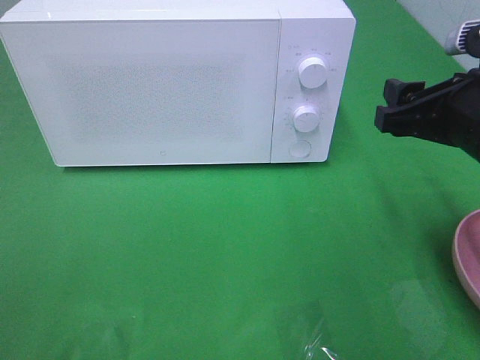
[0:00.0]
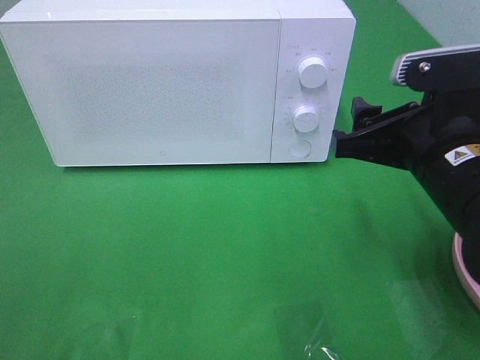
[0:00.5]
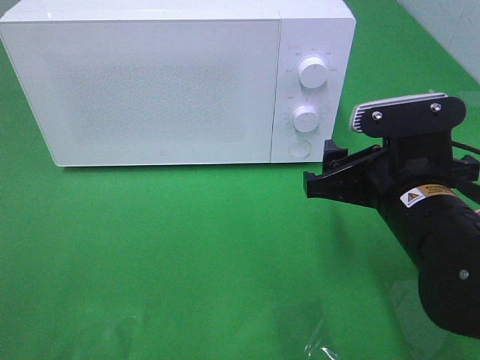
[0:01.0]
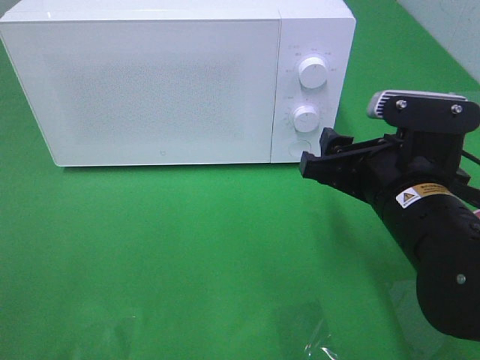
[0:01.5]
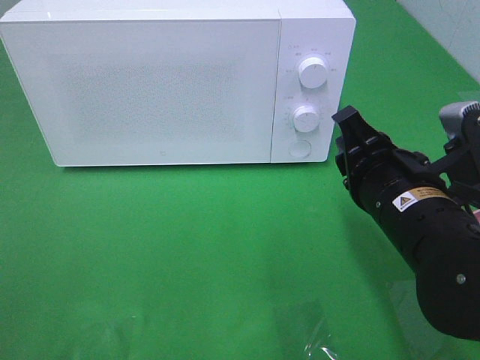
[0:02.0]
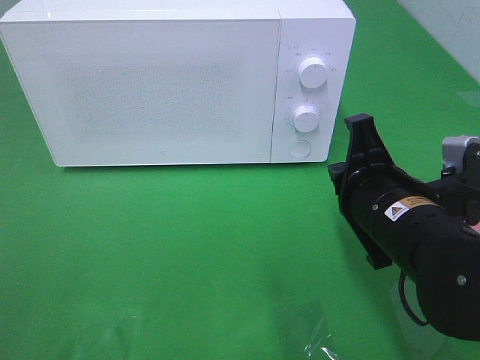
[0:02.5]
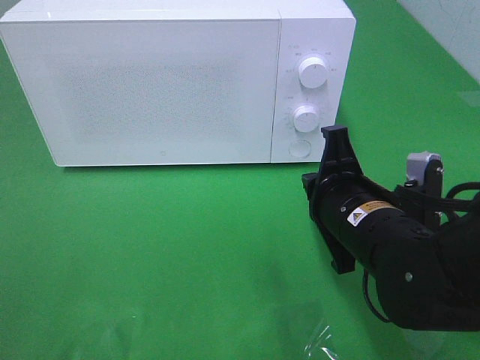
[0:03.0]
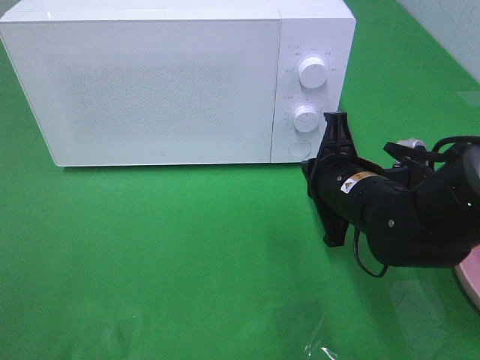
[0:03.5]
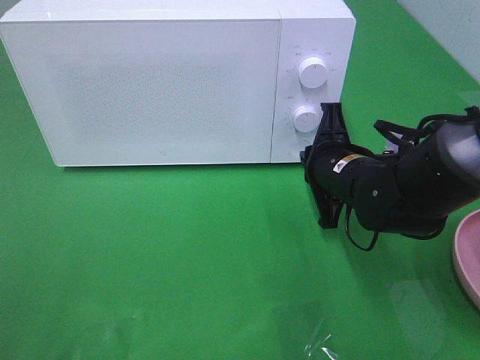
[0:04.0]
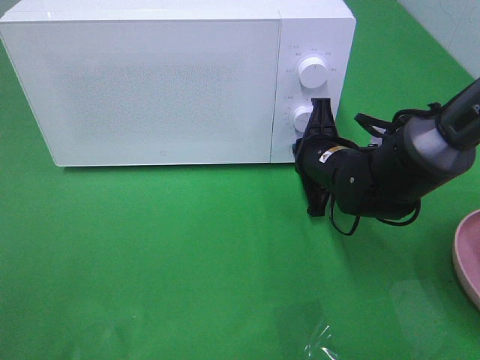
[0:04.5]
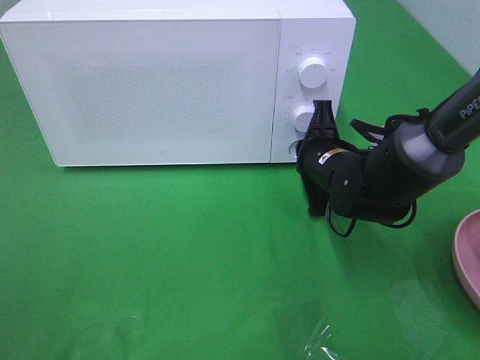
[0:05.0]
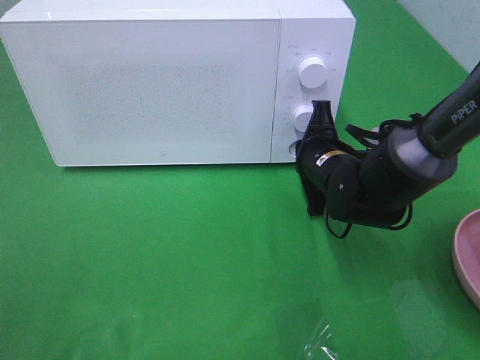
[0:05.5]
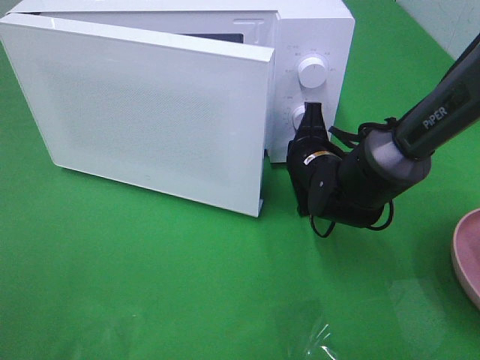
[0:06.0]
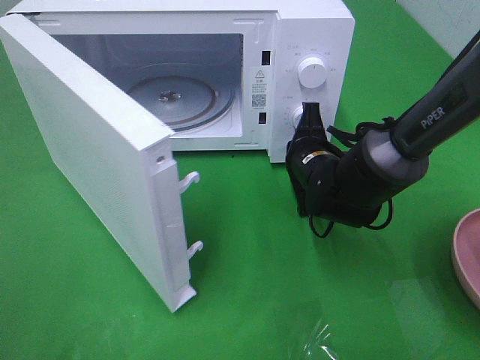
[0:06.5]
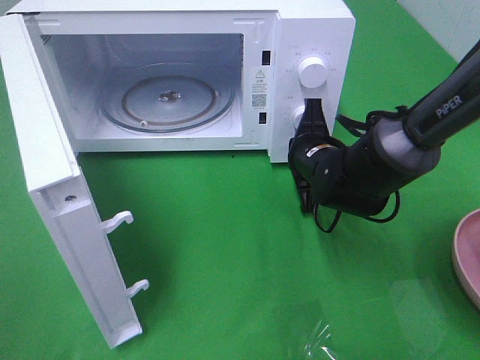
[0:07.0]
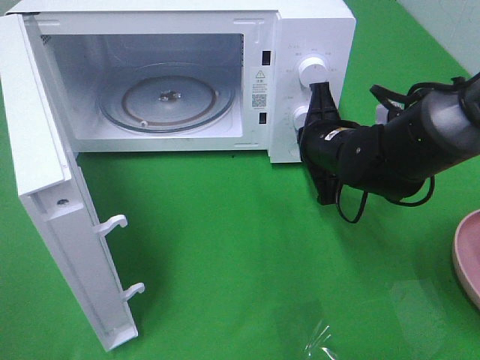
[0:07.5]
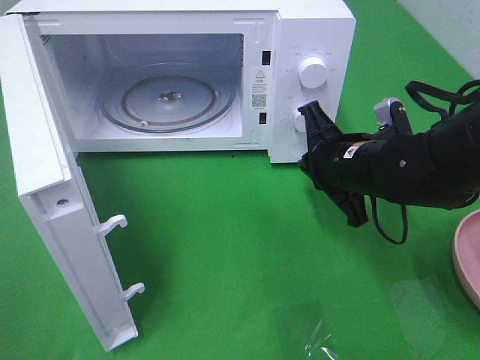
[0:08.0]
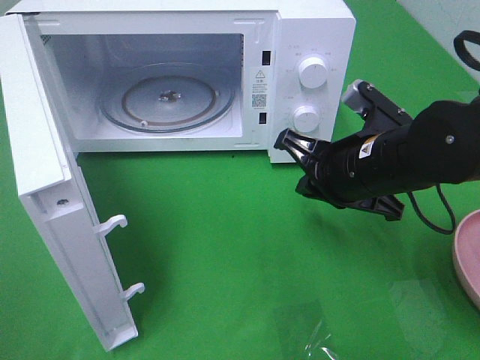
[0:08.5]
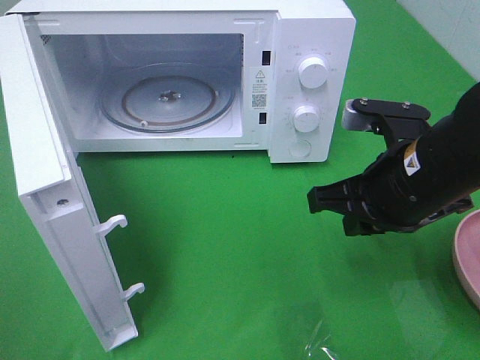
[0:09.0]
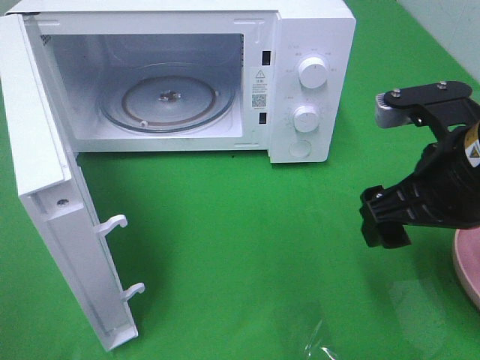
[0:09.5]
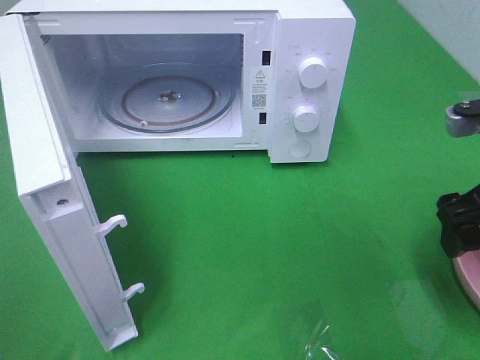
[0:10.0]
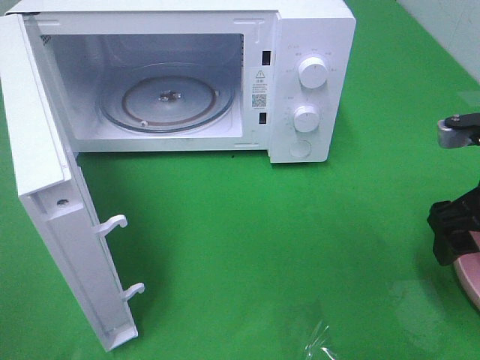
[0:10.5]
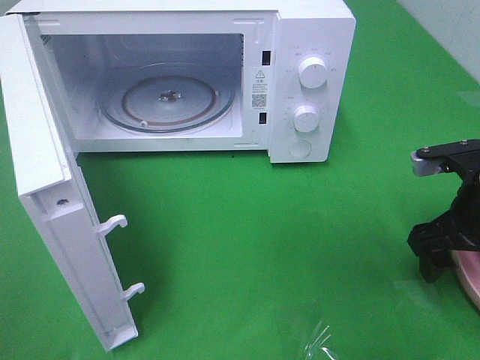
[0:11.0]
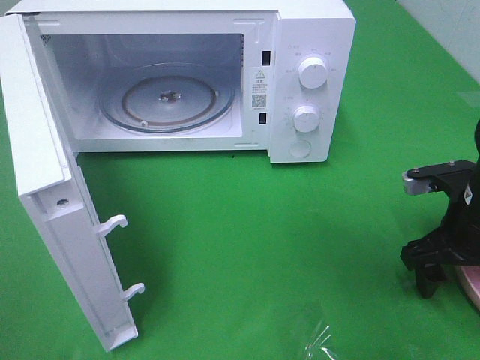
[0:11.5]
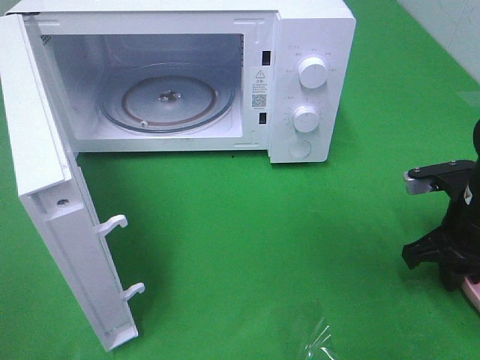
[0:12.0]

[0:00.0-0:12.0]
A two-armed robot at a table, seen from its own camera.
Task of the whole recording: Heat the burger.
Step, 0:00.0 to 0:08.0: Right hand: press the switch.
0:00.0 to 0:02.0: The right gripper moves to the left and downward, approximately 10 cm, and closes.
0:02.0 to 0:04.0: The right gripper is displaced forward and downward by approximately 10 cm.
0:04.0 to 0:06.0: The right gripper changes place by approximately 5 cm.
0:06.0 to 0:08.0: The right gripper heads backward and upward, covering approximately 10 cm.
0:08.0 to 0:10.0: The right gripper shifts some 15 cm to the right, upward and backward, and opens its fingers.
0:10.0 to 0:12.0: The right gripper heads downward, covering about 10 cm, and closes its fingers.

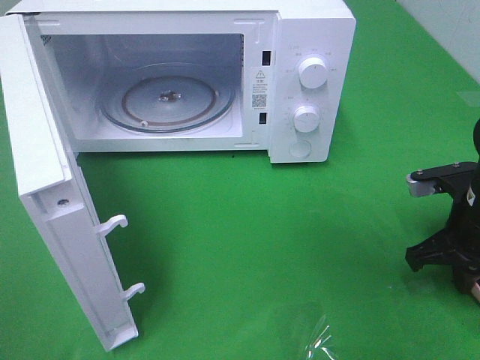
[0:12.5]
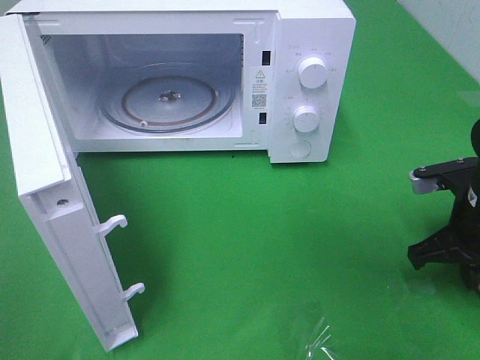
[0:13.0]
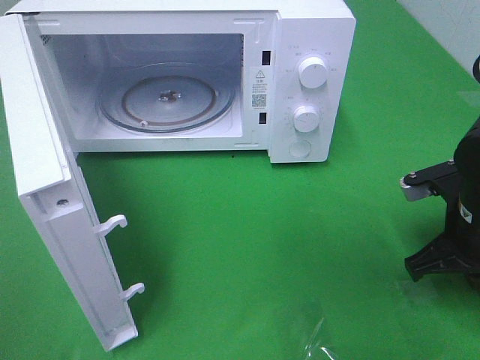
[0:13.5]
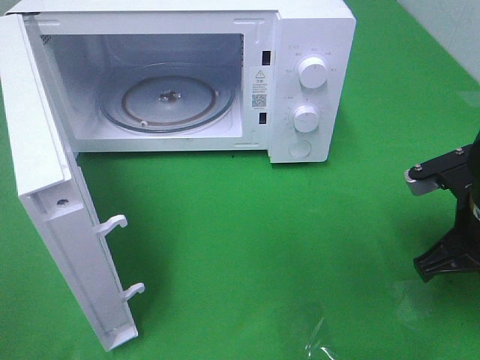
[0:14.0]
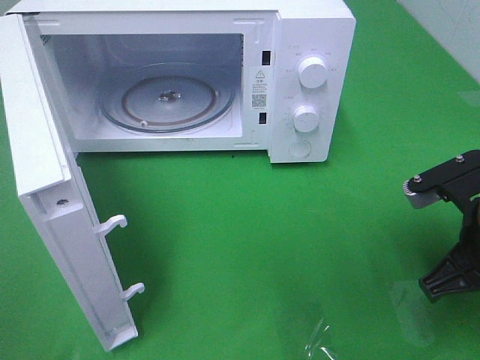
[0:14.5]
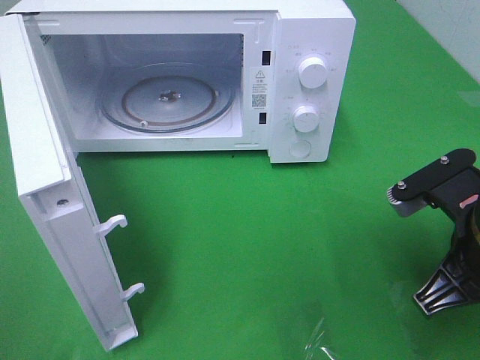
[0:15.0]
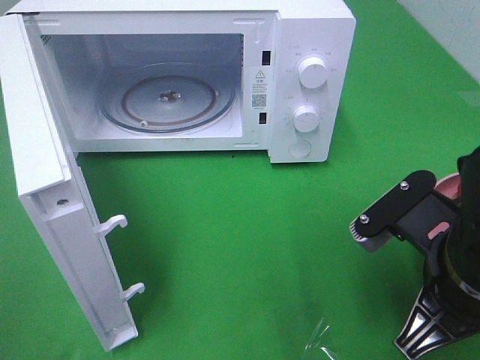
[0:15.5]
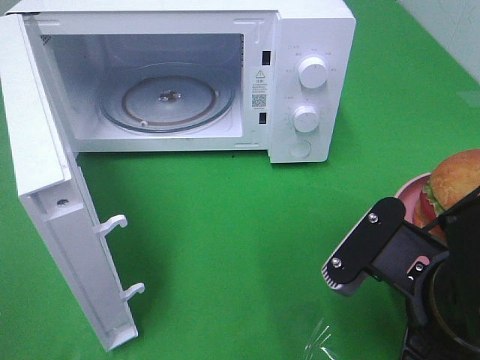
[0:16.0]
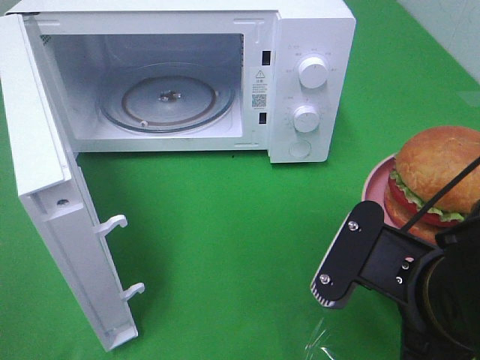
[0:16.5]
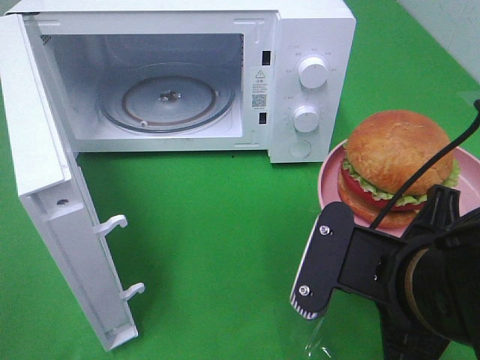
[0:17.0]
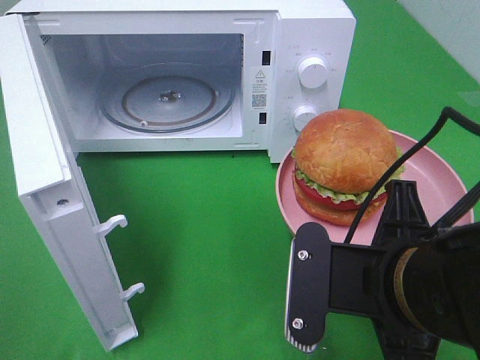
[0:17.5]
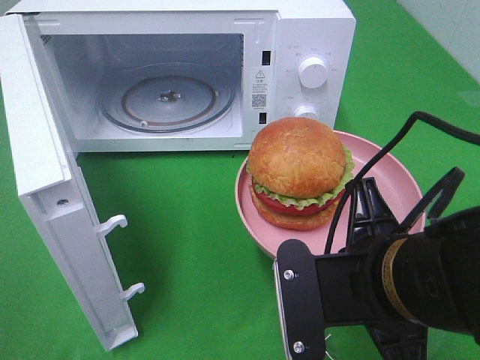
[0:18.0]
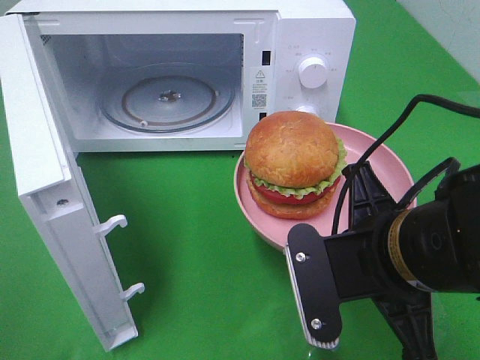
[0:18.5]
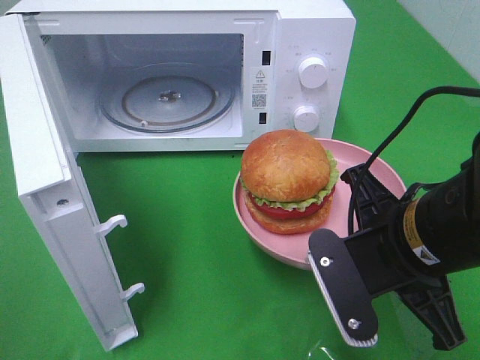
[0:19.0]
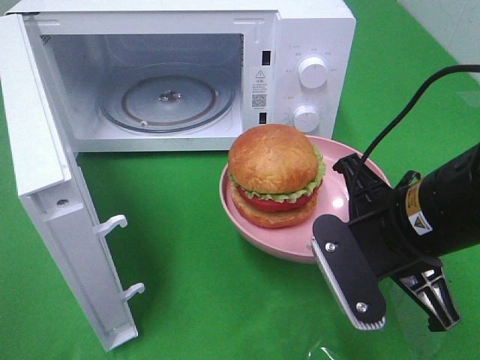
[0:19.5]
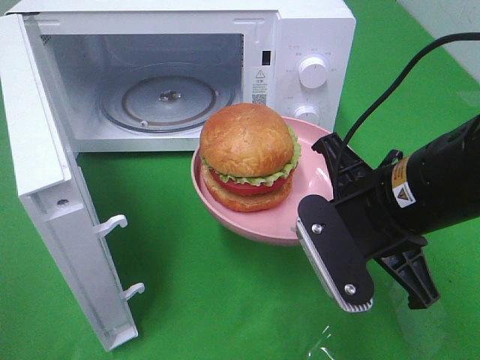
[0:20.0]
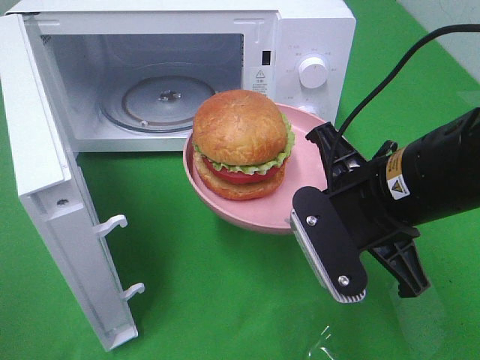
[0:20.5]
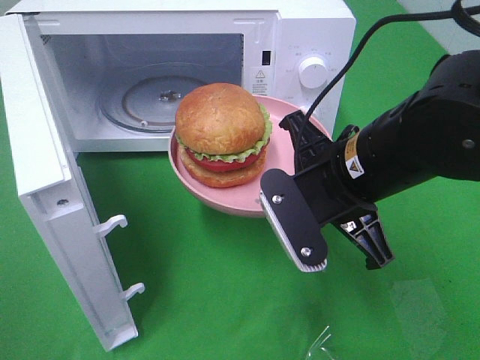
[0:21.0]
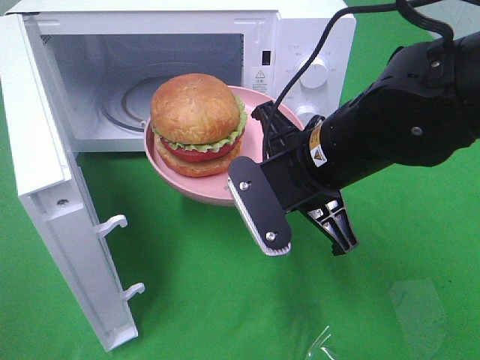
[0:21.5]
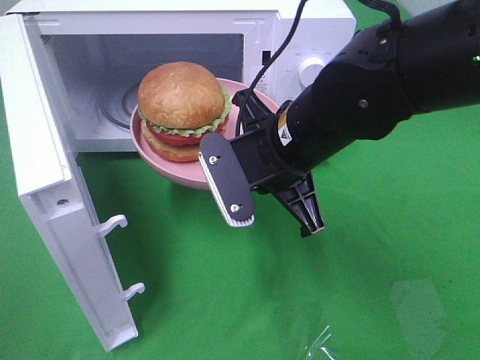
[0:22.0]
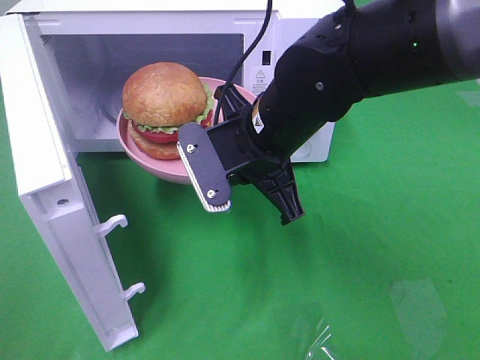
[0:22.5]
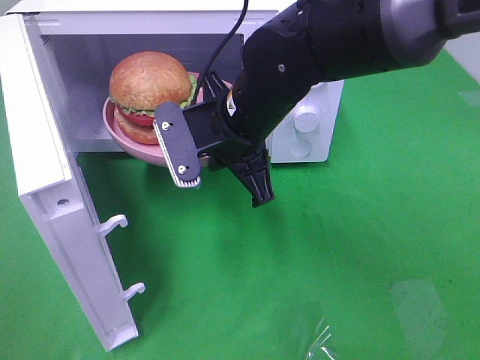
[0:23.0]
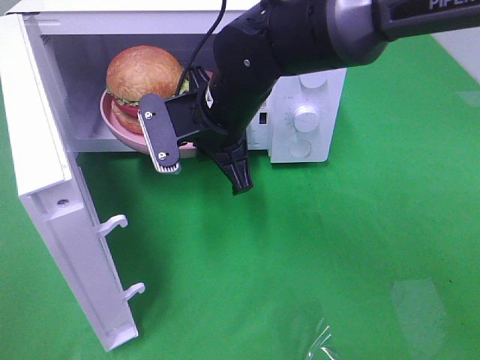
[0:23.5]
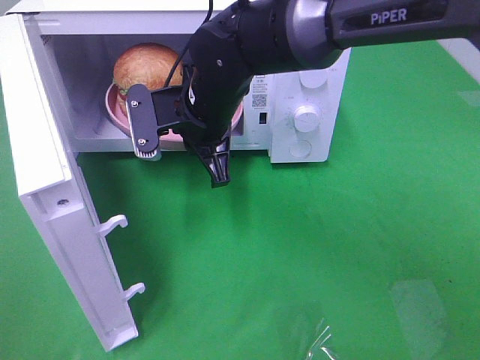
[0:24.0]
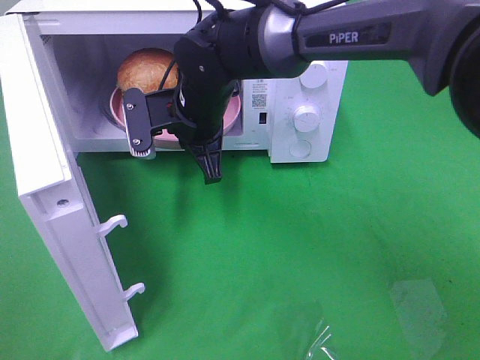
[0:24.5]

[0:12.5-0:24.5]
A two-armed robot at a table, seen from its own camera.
Task of the whole recording: Heat the burger.
0:12.5 to 0:14.5: The right gripper is displaced backward by approximately 5 cm.
0:14.5 to 0:16.5: The right gripper goes roughly 10 cm to the left and backward.
0:18.5 to 0:20.5: The right gripper moves roughly 5 cm.
0:20.5 to 0:22.5: The right gripper goes roughly 15 cm to the left and forward.
0:22.5 to 0:24.5: The right gripper moves forward and to the left, some 10 cm.

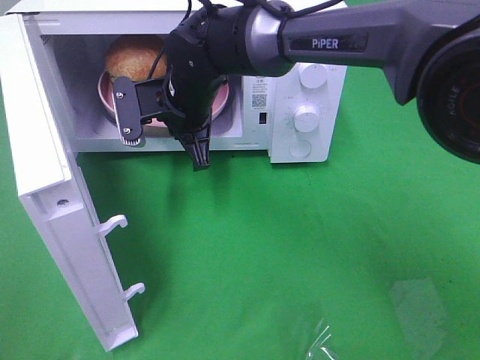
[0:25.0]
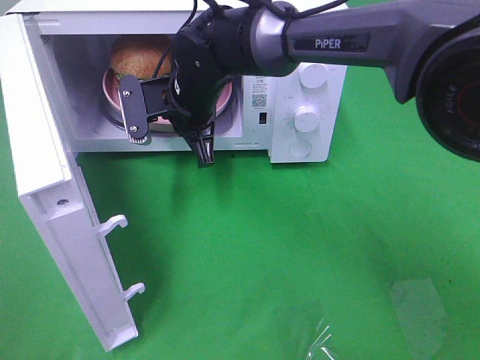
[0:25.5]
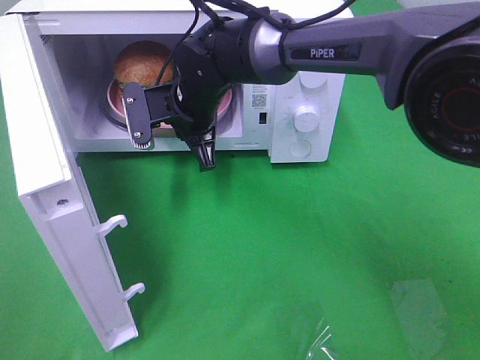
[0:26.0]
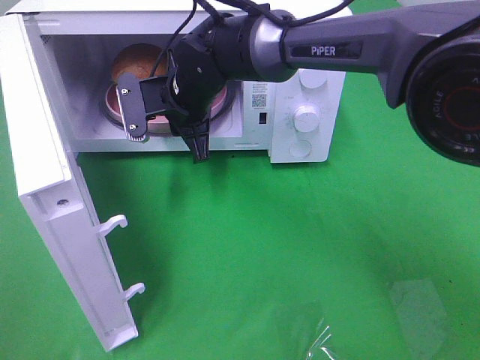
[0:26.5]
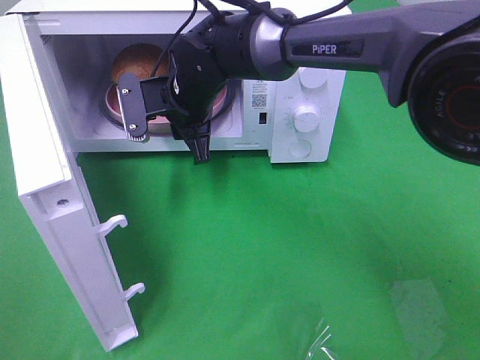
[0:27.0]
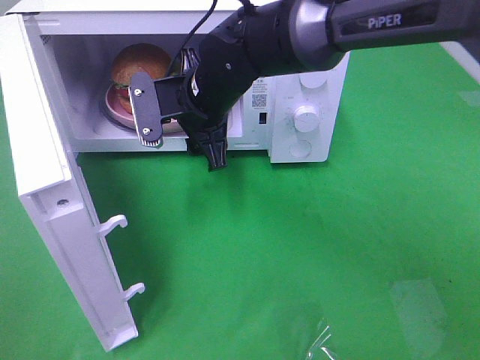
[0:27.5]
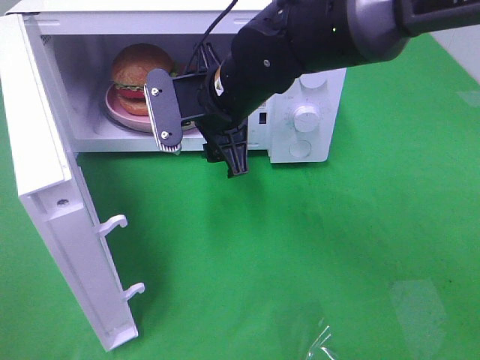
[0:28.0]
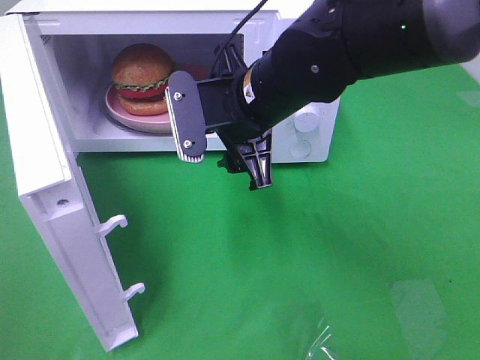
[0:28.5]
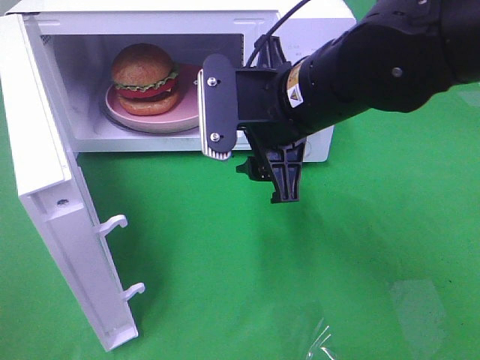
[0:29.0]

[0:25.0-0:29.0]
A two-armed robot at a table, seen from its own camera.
Task of the whole recording: Heat the burger.
Step, 0:25.0 to 0:27.5: Right hand: place the plate in the microwave.
0:25.0 to 0:27.0: The right gripper opens up.
0:27.0 to 0:29.0: The right gripper is displaced backward, to the right and upward by some 20 cm.
